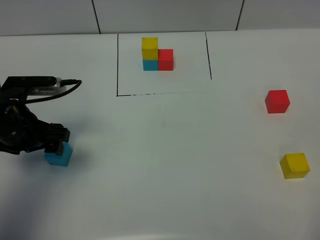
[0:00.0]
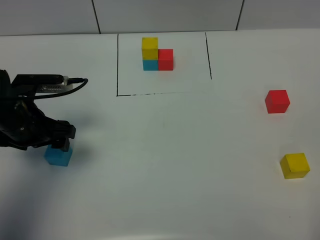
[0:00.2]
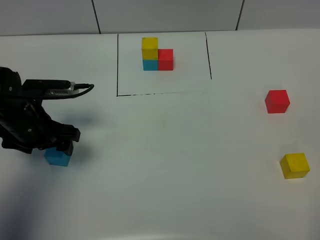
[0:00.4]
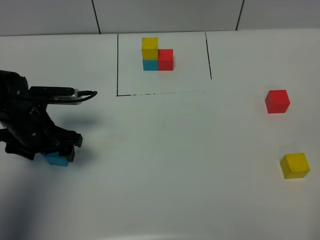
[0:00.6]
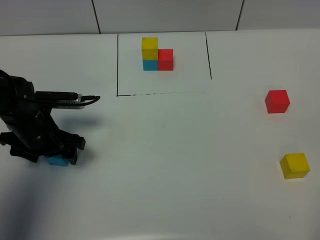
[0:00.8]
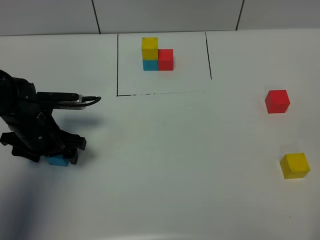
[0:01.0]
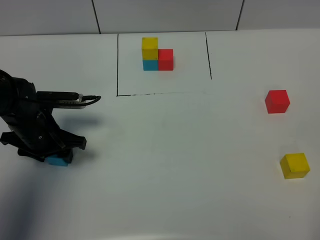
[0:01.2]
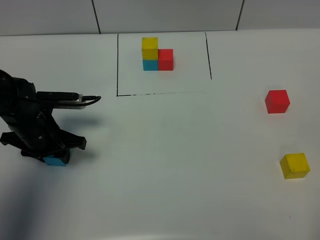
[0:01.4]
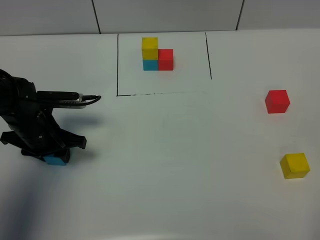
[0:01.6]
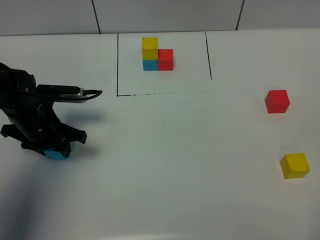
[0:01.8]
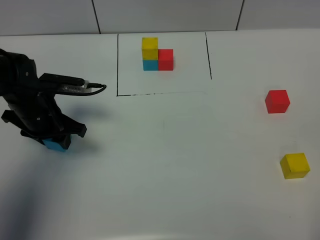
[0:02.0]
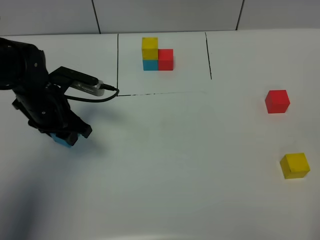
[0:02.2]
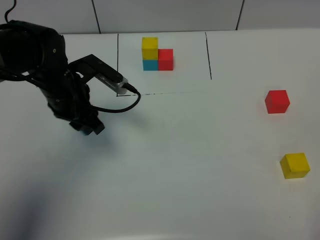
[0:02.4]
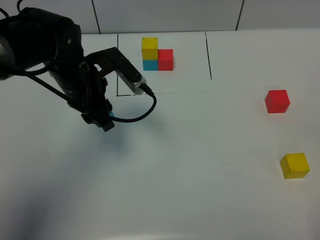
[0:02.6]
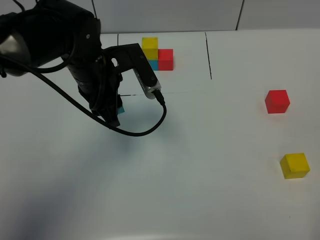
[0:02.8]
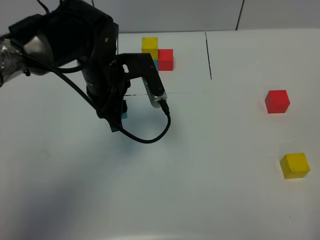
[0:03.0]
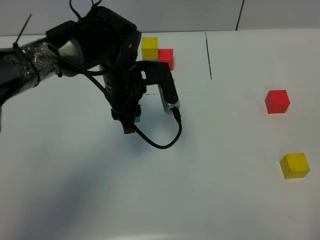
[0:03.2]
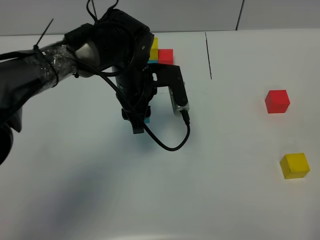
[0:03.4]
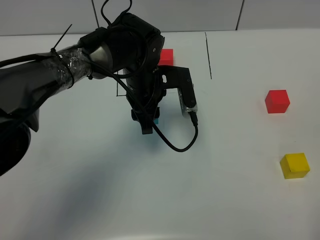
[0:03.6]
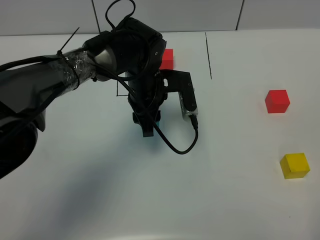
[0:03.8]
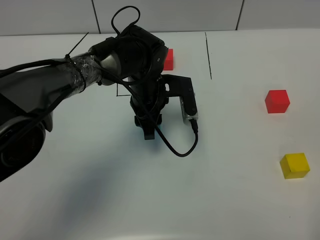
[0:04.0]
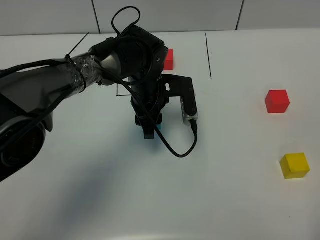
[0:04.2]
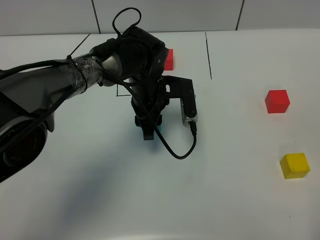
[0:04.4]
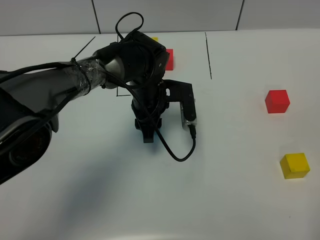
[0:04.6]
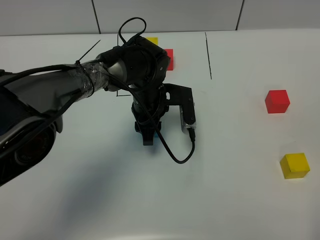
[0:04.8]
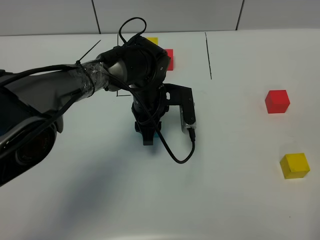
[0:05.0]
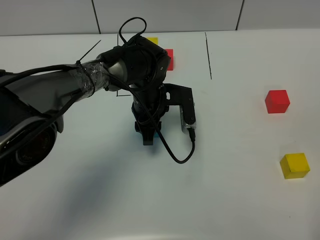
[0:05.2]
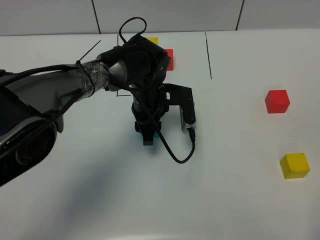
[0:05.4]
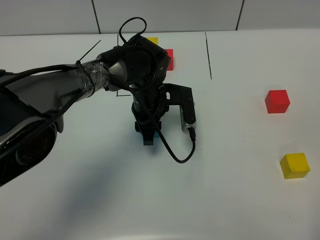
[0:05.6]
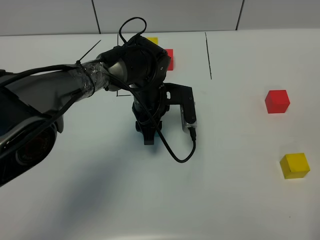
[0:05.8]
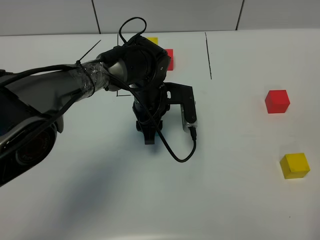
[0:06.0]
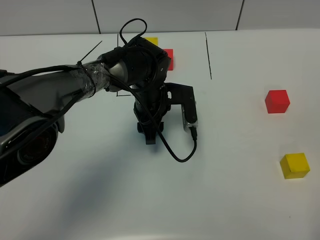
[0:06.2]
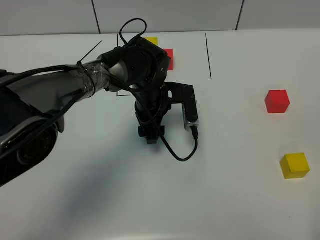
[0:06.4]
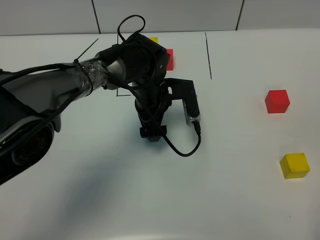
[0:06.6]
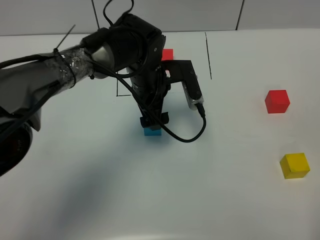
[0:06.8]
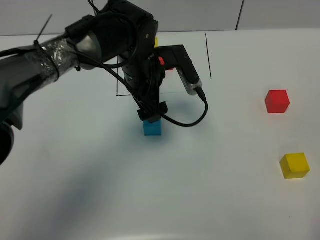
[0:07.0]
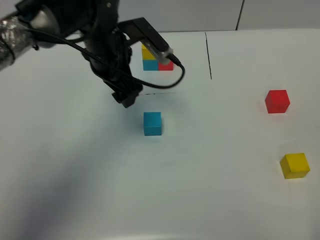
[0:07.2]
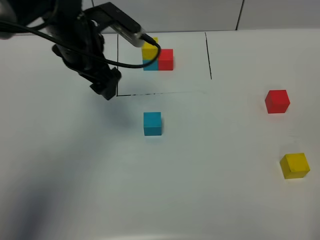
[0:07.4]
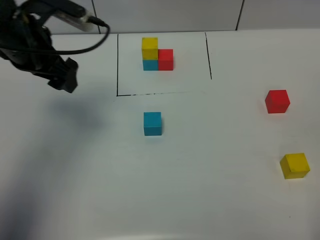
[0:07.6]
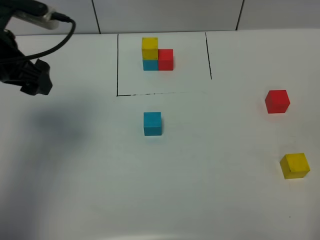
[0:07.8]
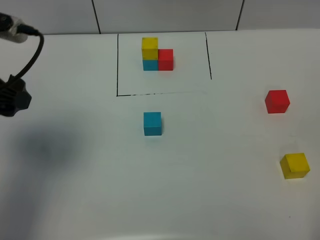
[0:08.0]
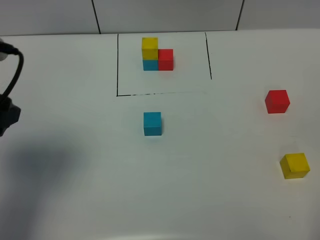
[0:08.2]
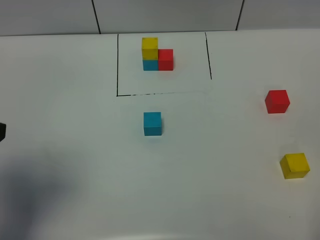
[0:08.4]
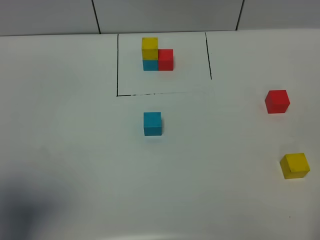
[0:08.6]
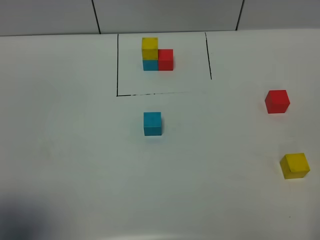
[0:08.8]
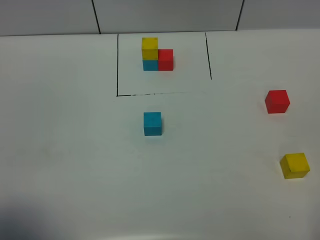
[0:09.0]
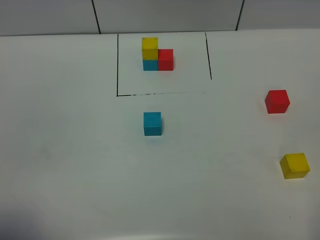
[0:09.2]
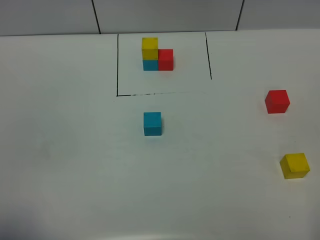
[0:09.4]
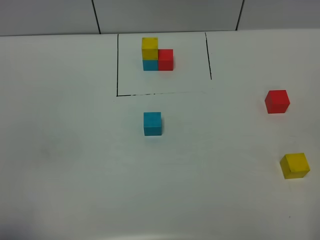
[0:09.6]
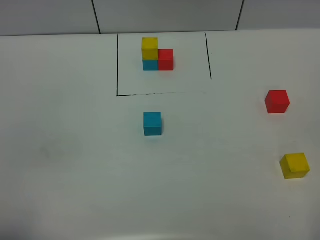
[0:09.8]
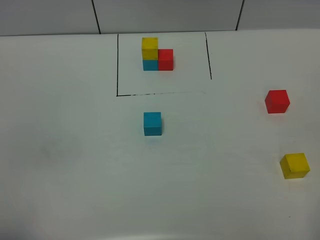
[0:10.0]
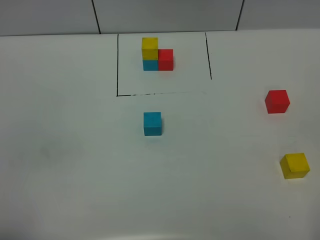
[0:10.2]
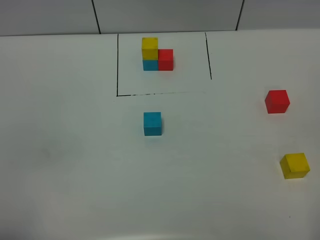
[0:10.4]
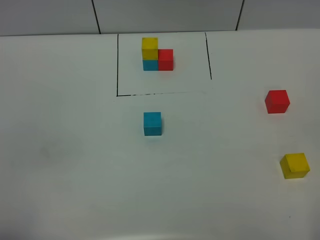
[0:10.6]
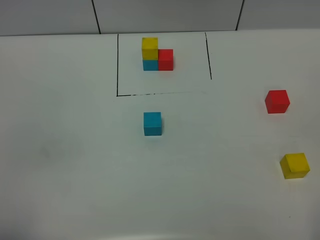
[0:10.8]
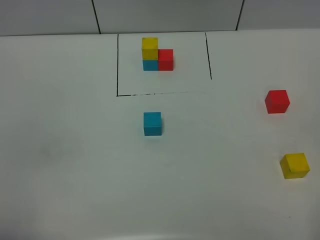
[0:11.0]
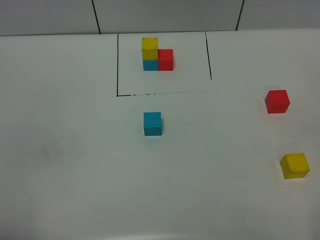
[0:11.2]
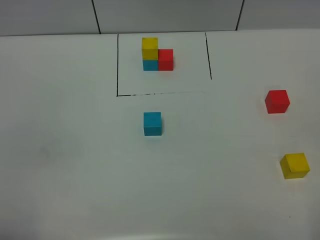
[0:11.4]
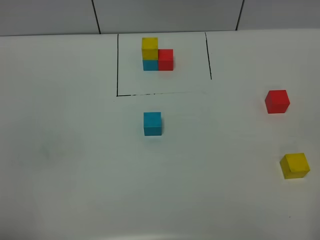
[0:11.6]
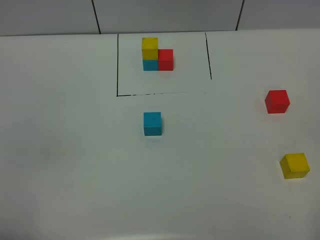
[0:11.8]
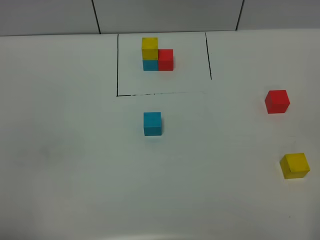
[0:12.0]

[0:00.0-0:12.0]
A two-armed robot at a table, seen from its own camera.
Task of the whole recording: According to the building block template in front, assemble the scattered blocks together.
Step, 0:00.0 to 0:06.2: Put the blue build block in the center of the table.
0:00.0 to 0:01.6: The left gripper moves downward, roughly 5 cm, and closes.
0:01.6 to 0:03.0: The left gripper goes some 15 cm to the right and upward.
0:03.0 to 0:04.4: The left gripper moves downward and to the right, about 10 cm.
0:04.4 to 0:06.0: There are only small adjustments of the grippers.
0:06.0 to 0:07.6: The left gripper goes some 25 cm to the left and upward, and opens its fingers.
0:07.6 to 0:09.0: The left gripper is displaced backward by about 30 cm.
0:09.0 to 0:10.4: The left gripper heads backward, covering roughly 5 cm.

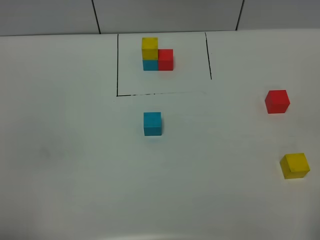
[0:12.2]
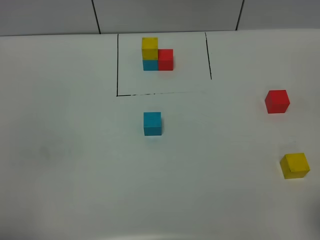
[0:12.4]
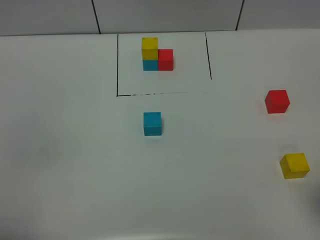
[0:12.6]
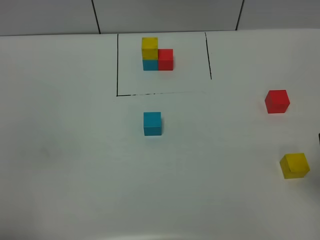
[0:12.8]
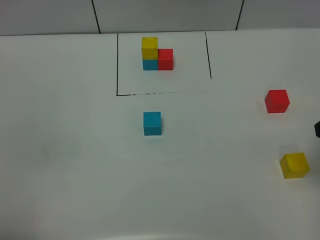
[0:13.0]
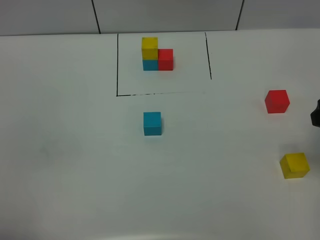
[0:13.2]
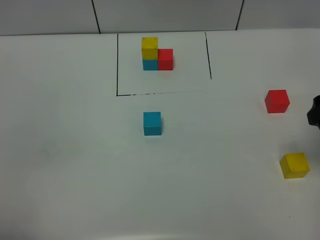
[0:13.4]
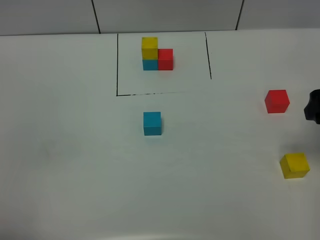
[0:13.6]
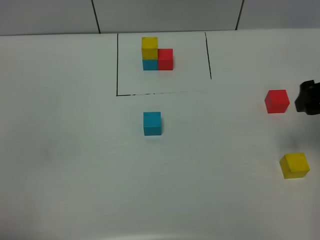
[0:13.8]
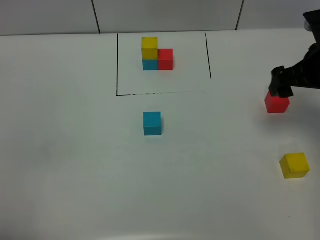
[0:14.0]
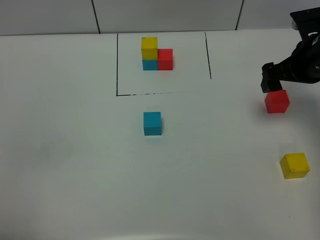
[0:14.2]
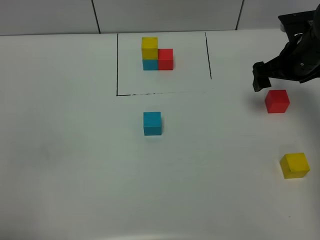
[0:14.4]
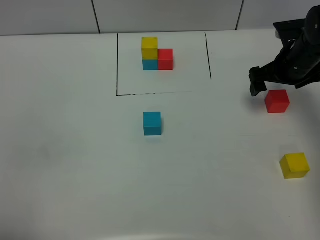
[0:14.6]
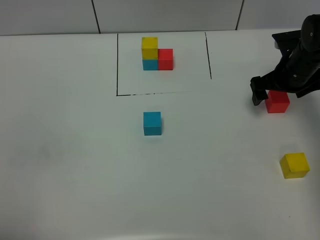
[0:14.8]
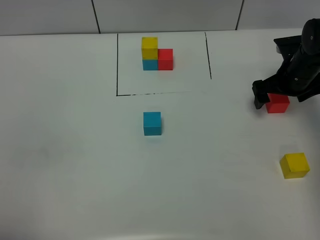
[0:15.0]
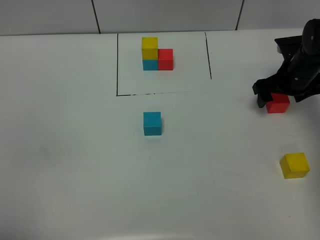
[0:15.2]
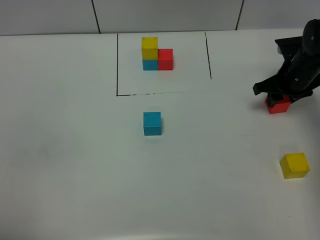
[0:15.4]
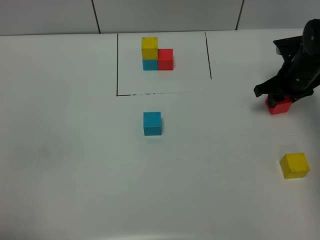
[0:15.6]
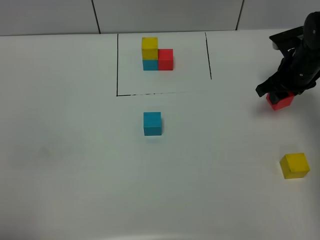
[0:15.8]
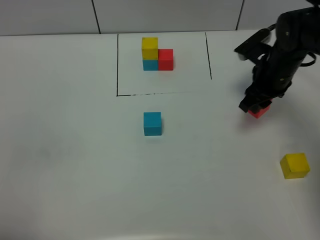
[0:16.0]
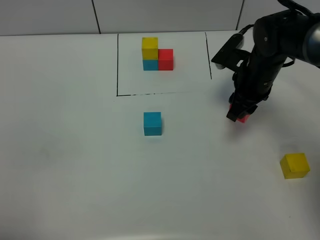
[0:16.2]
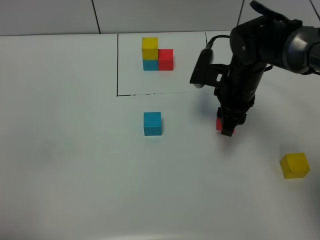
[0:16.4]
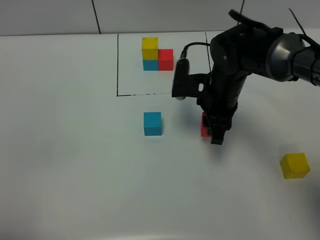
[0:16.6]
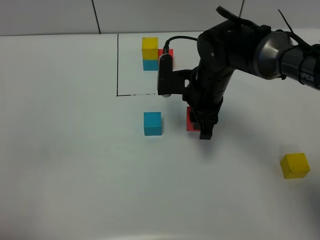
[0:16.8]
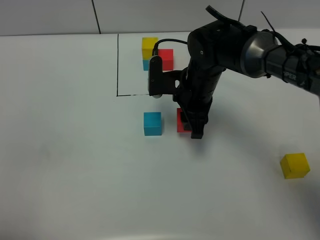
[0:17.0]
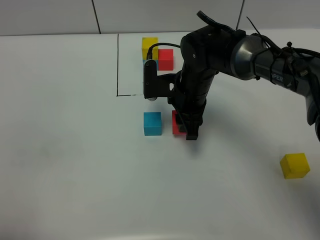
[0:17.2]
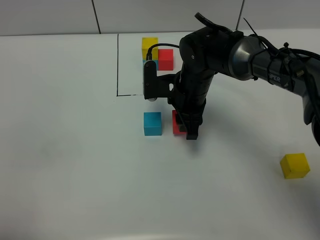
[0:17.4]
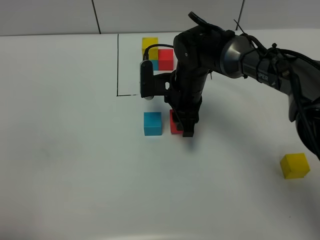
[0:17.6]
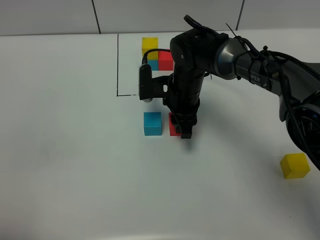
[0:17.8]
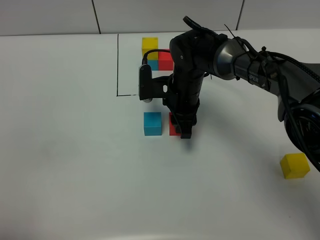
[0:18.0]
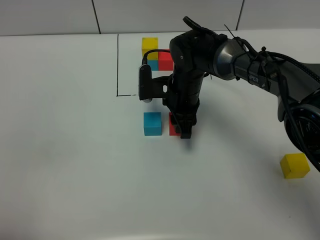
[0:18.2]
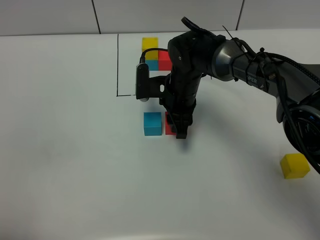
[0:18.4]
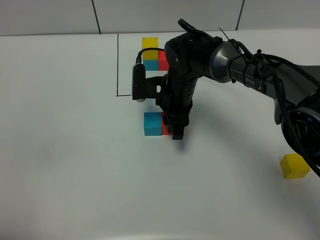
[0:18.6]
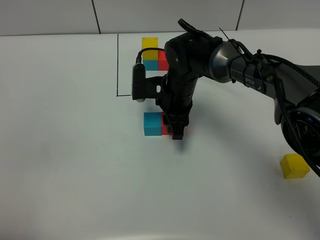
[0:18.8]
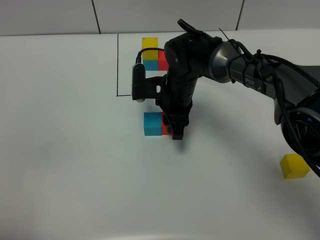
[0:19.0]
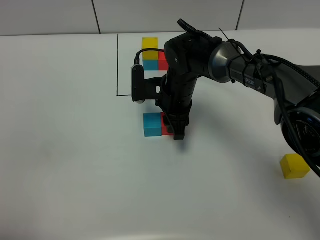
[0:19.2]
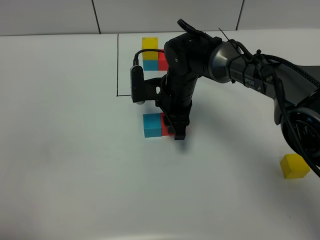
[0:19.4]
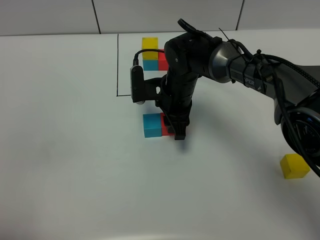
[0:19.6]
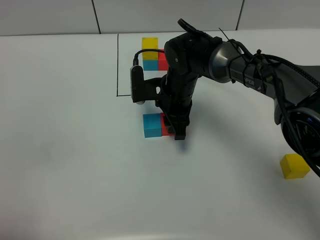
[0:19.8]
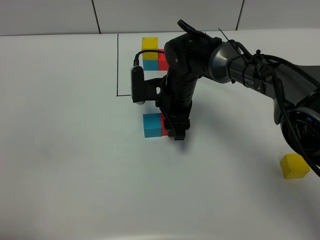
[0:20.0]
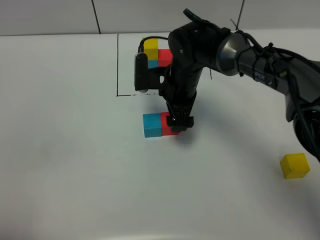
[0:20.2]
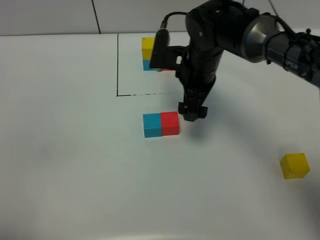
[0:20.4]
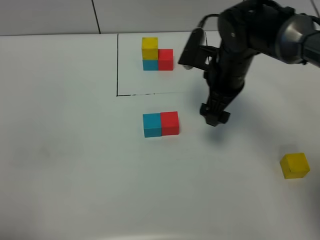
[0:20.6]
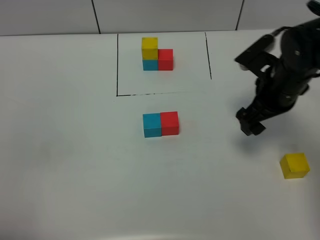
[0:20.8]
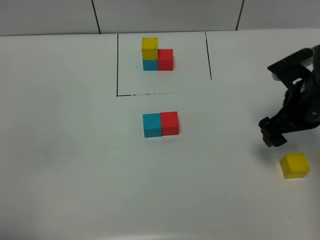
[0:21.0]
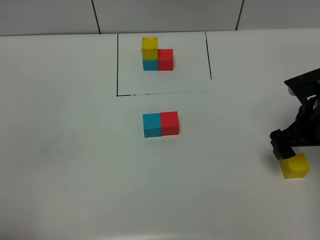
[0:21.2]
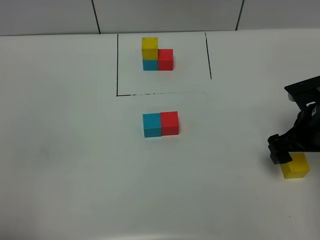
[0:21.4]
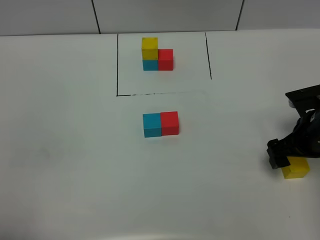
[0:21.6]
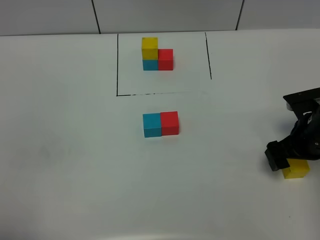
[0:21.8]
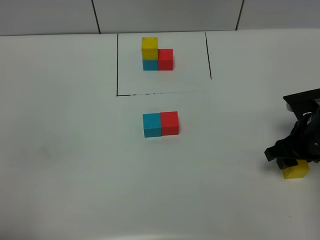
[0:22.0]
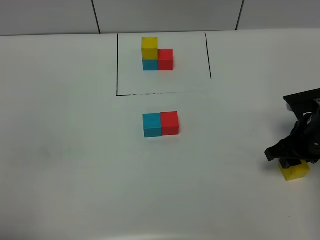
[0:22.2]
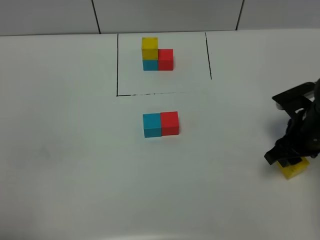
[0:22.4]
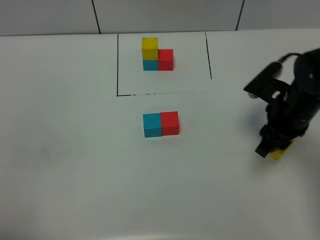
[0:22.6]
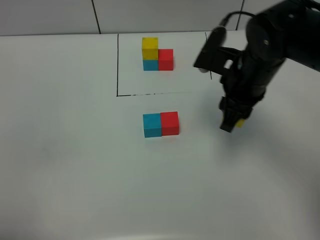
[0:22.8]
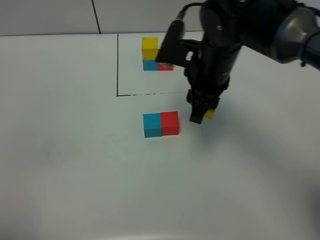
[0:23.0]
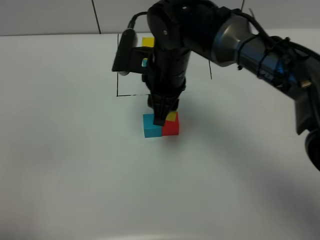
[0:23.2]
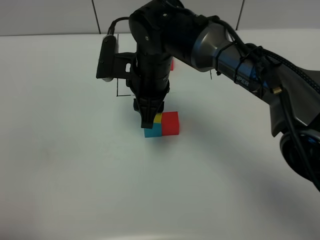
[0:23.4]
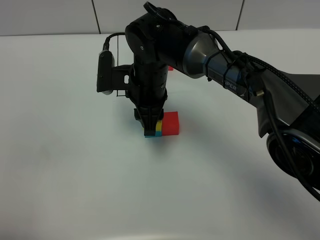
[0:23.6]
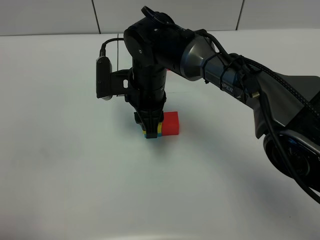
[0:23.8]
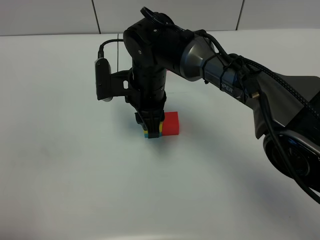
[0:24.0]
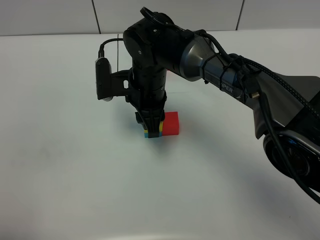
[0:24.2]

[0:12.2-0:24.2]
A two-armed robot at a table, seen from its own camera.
Task of the whole recording: According to the building block template in front, assemble the scattered blocks together.
Step, 0:12.2 to 0:20.0: Put the red build block on the right of the blue build block.
0:12.2 to 0:13.8: The right gripper moves forward, about 25 cm.
0:13.8 to 0:15.2: The right gripper goes approximately 20 cm forward and downward, and closes up.
0:15.2 to 0:16.6: The right gripper travels to the left and backward by approximately 20 cm, and closes up.
0:16.6 to 0:18.2: The right gripper heads to the left, covering approximately 5 cm.
0:18.2 to 0:19.8: The two grippers keep their place.
0:19.8 to 0:21.2: The right gripper travels to the right by about 25 cm, and opens its fingers.
0:21.2 to 0:22.6: The right gripper shifts approximately 5 cm to the left, and closes its fingers.
0:22.6 to 0:24.2: The right gripper is displaced to the left by about 25 cm.
